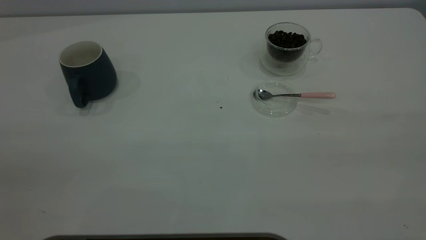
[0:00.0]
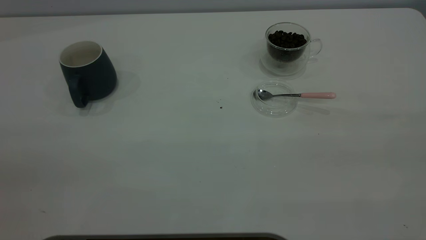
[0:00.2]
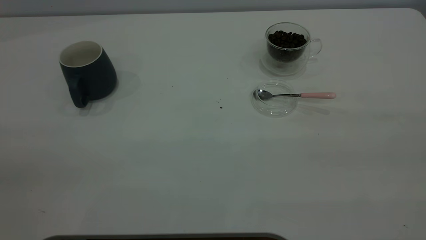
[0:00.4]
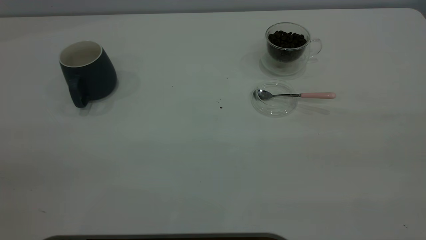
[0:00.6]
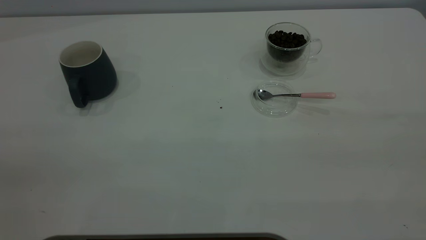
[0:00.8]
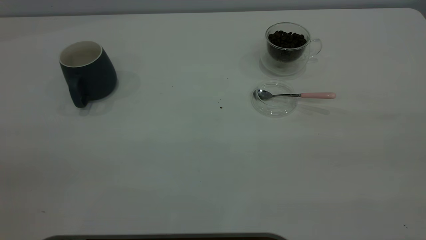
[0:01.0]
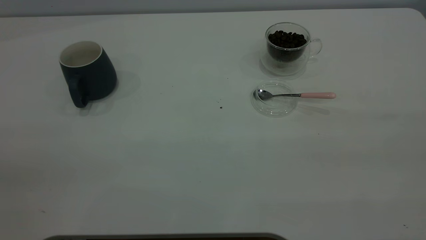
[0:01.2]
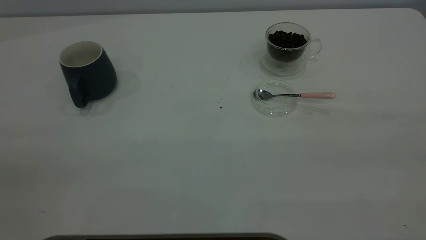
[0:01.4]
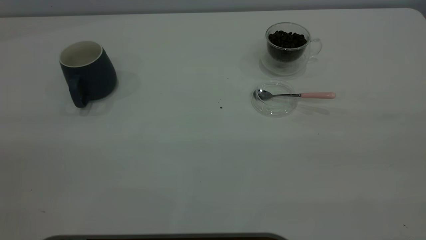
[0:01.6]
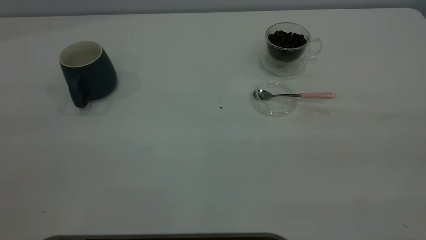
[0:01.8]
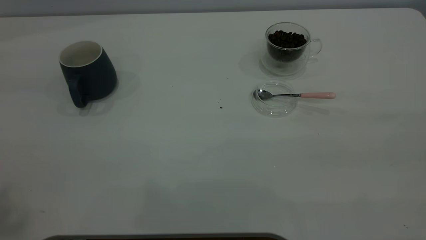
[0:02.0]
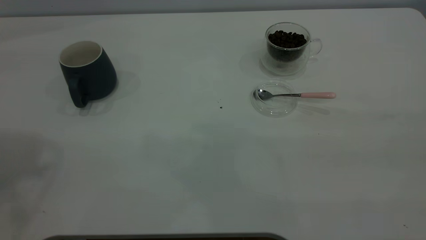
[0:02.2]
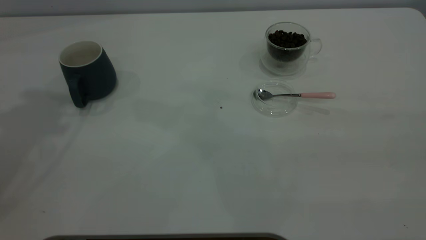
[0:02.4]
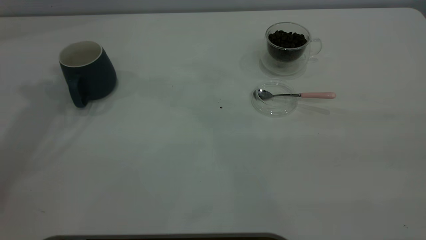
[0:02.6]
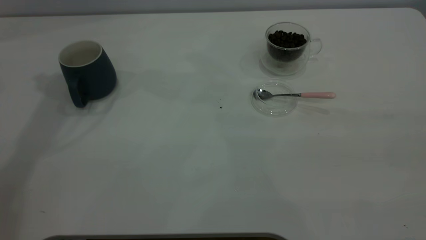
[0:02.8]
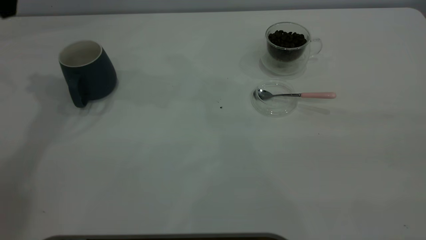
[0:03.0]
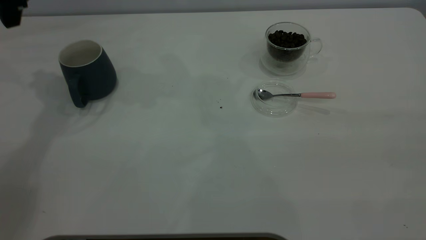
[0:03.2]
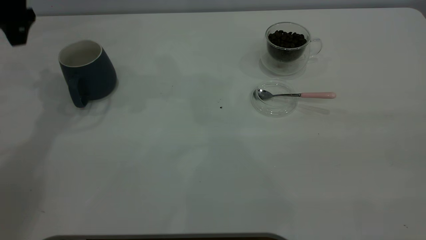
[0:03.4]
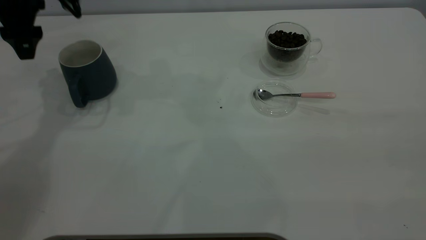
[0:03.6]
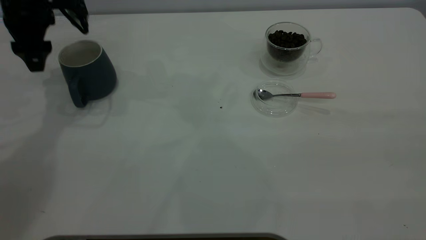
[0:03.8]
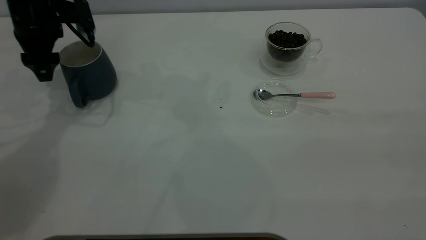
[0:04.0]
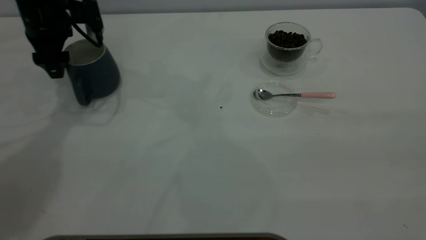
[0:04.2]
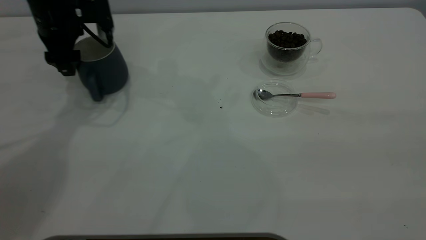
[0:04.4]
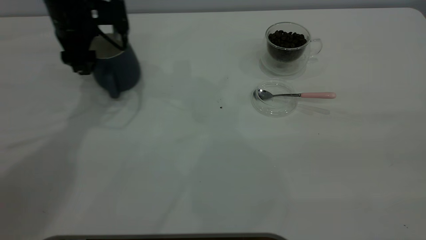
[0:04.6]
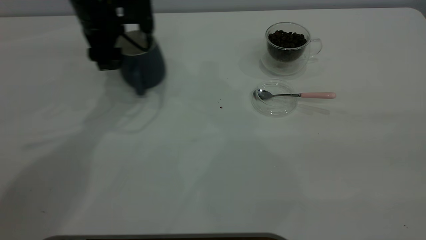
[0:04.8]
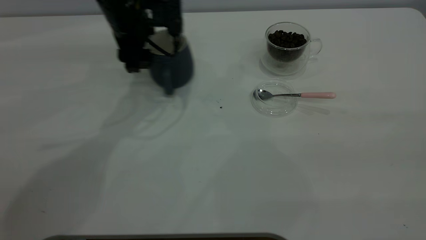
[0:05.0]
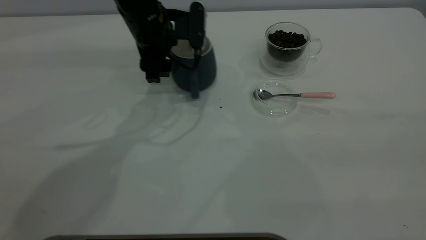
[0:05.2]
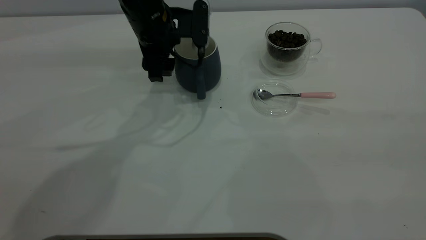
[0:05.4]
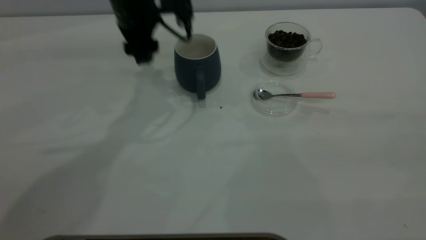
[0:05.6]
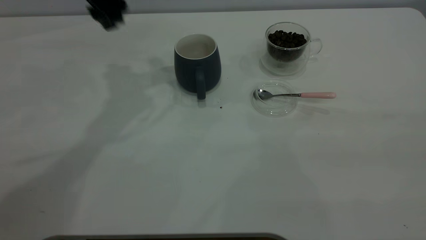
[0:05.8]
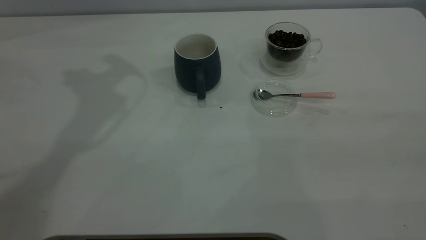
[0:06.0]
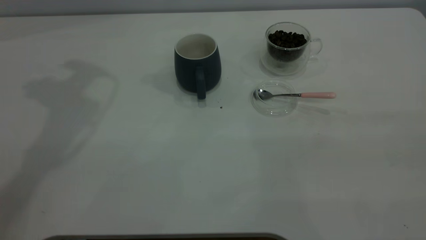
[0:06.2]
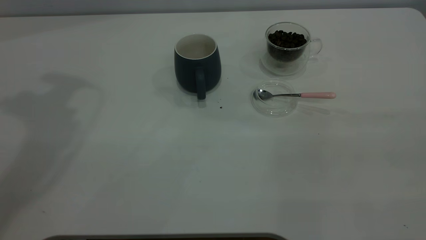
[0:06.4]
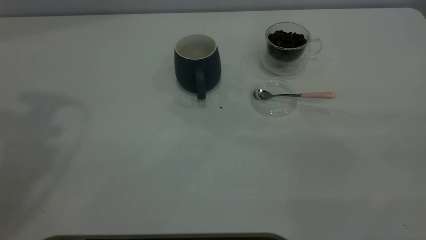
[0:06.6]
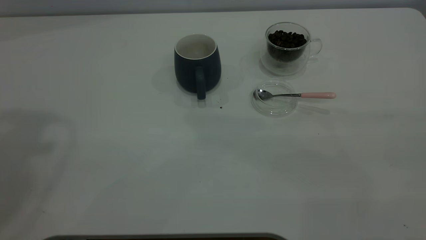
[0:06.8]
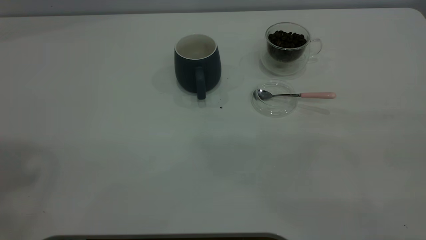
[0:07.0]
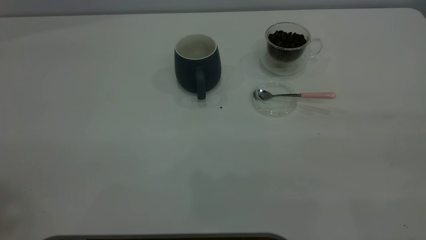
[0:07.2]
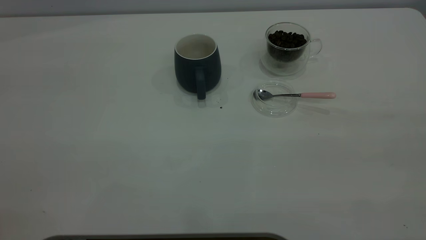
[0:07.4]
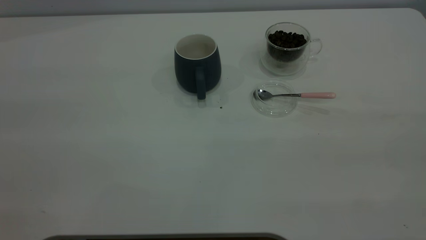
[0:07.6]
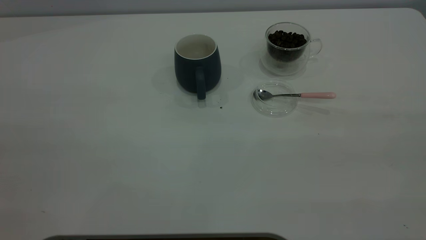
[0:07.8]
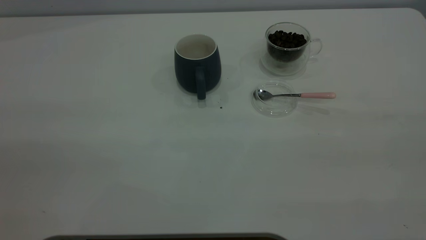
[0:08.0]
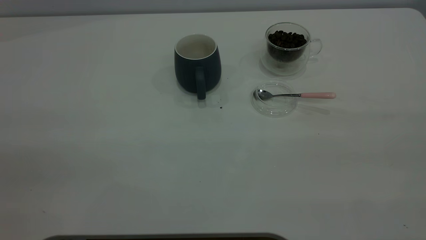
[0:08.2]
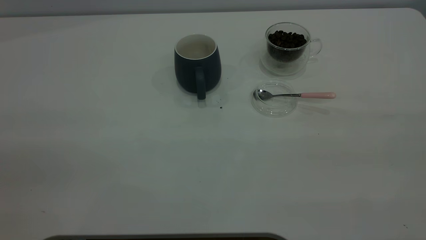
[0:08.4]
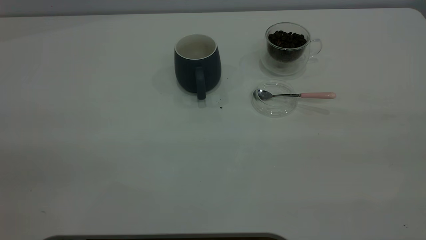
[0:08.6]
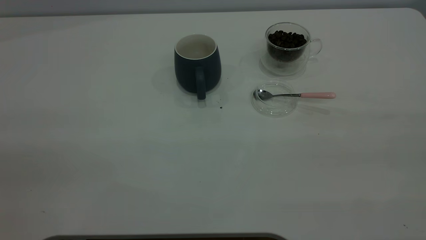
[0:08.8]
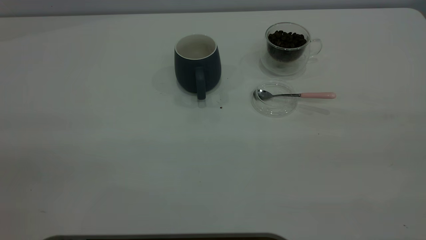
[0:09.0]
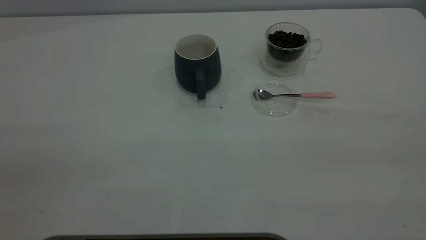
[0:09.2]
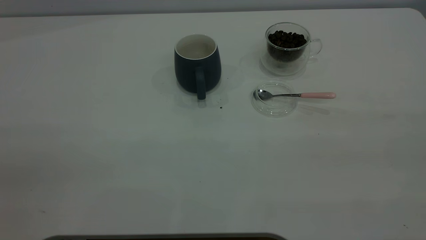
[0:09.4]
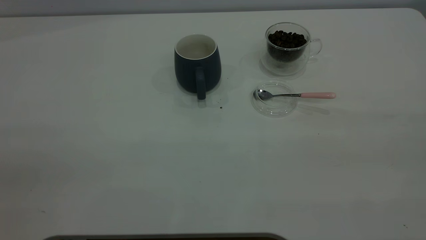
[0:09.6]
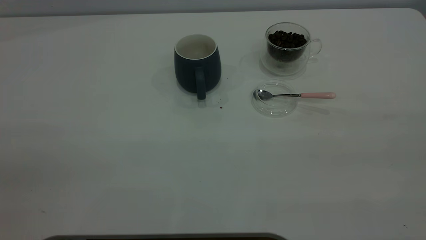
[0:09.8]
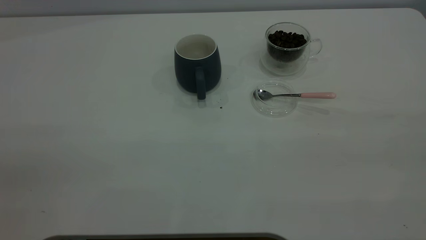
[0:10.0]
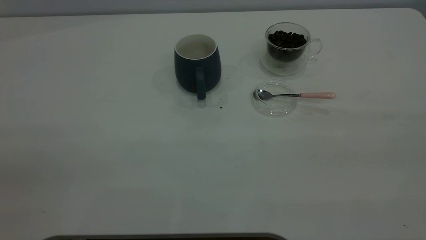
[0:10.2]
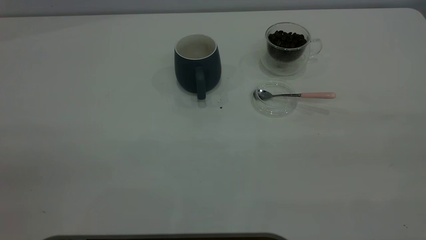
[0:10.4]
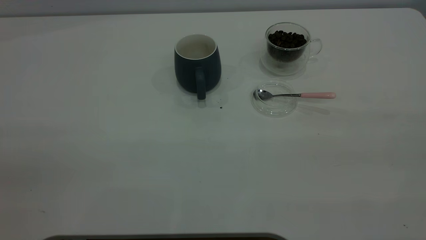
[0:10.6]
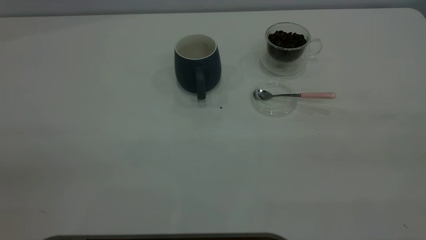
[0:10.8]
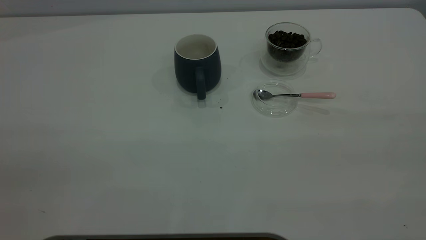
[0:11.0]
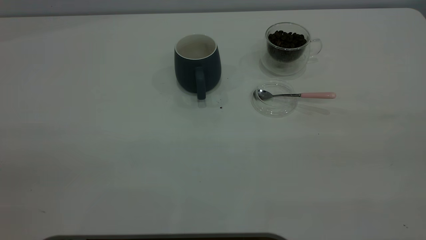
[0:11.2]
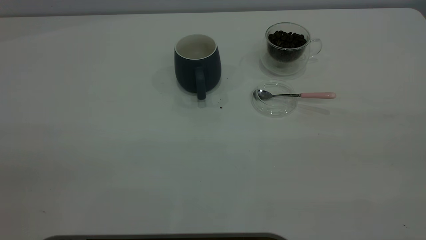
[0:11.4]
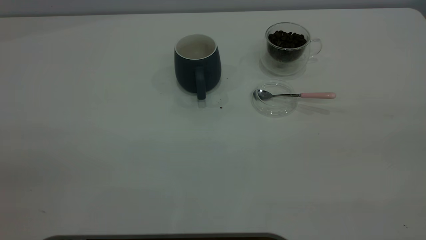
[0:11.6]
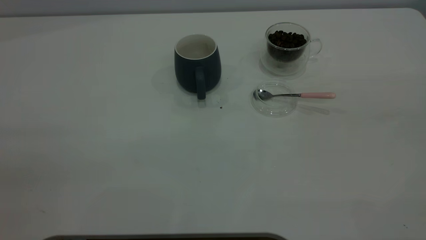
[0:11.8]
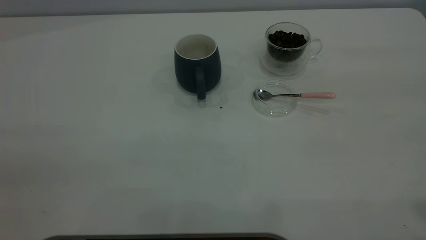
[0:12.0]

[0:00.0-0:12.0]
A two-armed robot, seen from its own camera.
Task of the whole recording: the left gripper place the grey cup in the center of the table, the right gripper take the pink spoon from the cup lid and scoop out the coffee beans from the coffee cup and put them into the grey cup, the right gripper put the spoon back into the cup lid.
Step, 0:00.0 to 0:05.4: Move the cup to the center of view.
0:03.0 to 0:04.4: The left gripper heads downward, covering approximately 15 cm.
0:04.4 to 0:06.0: The left gripper shifts about 20 cm upward.

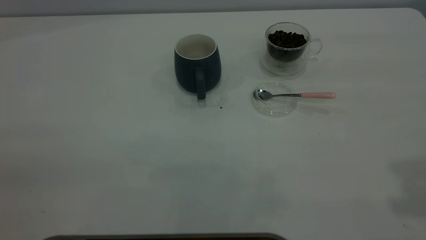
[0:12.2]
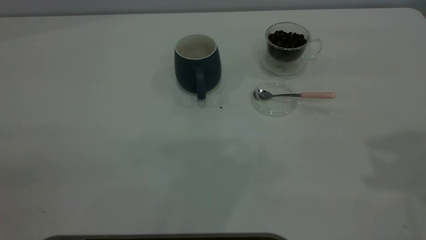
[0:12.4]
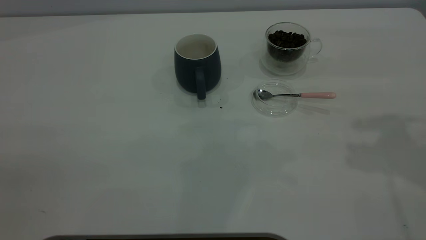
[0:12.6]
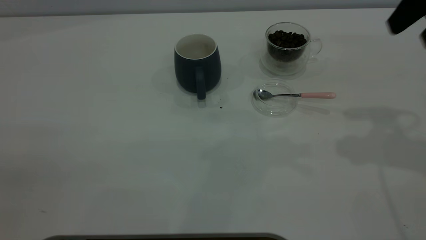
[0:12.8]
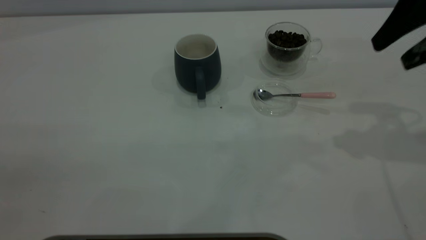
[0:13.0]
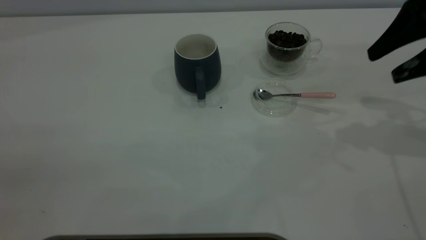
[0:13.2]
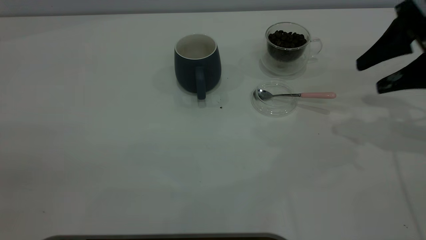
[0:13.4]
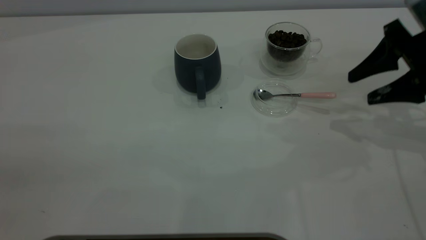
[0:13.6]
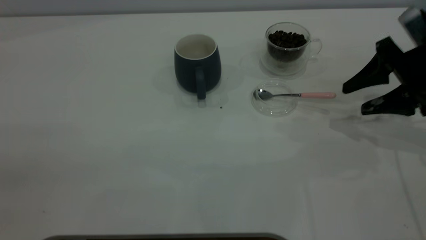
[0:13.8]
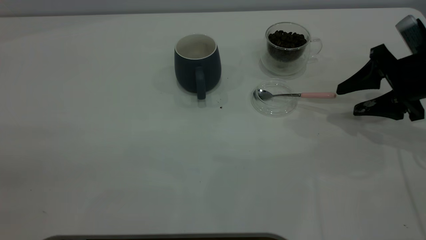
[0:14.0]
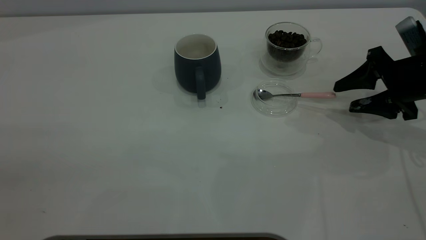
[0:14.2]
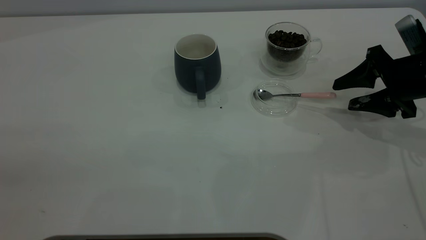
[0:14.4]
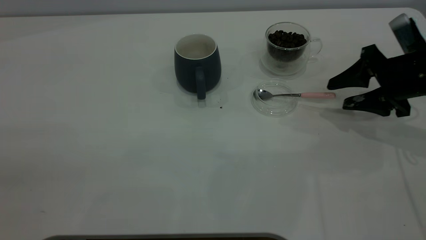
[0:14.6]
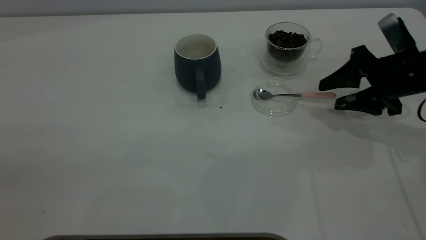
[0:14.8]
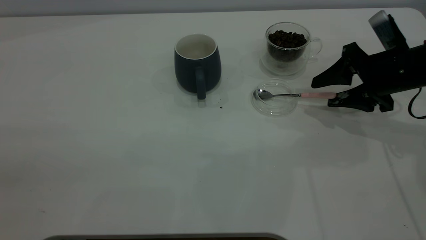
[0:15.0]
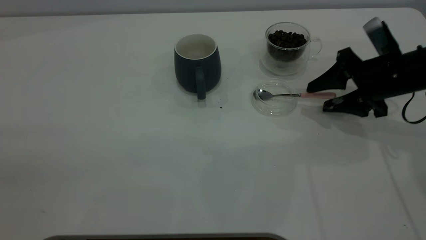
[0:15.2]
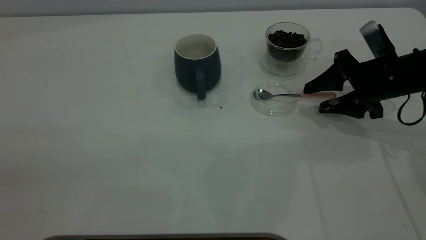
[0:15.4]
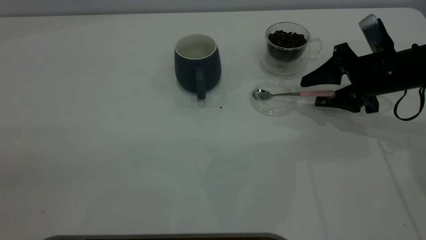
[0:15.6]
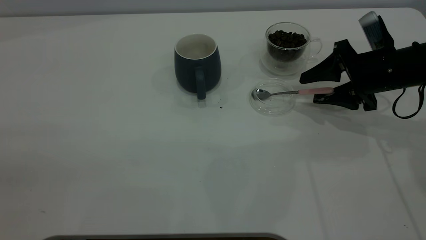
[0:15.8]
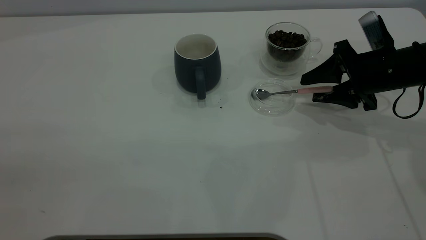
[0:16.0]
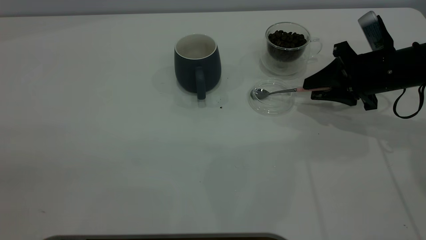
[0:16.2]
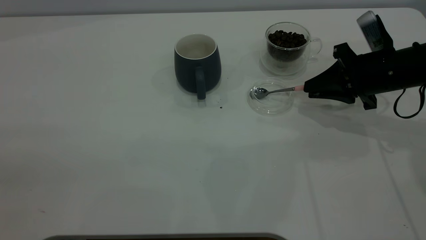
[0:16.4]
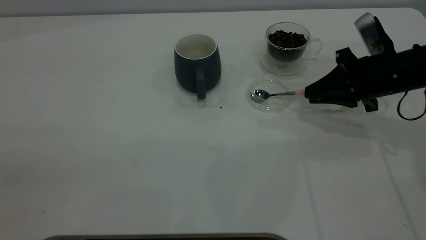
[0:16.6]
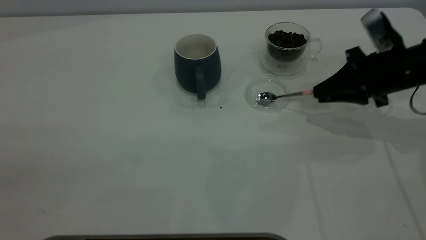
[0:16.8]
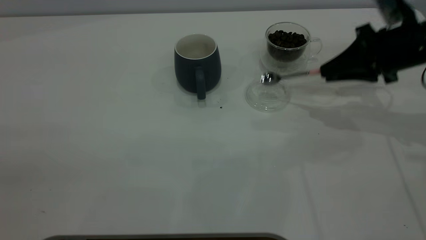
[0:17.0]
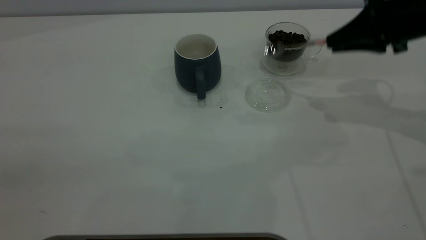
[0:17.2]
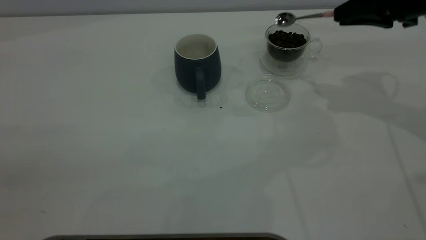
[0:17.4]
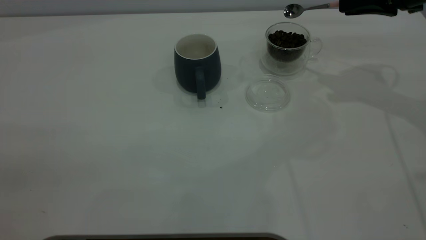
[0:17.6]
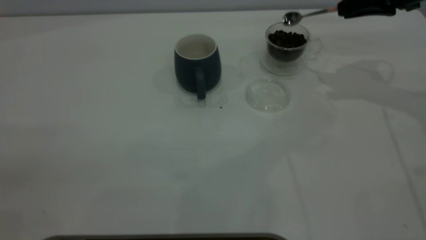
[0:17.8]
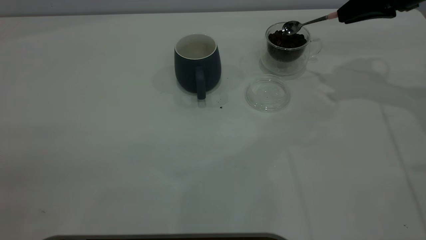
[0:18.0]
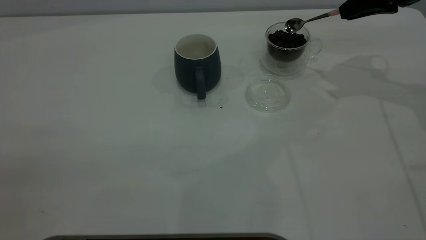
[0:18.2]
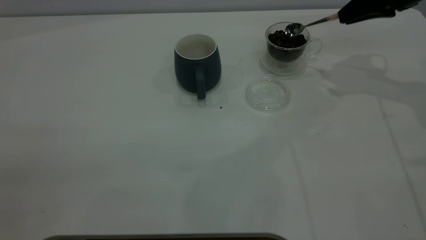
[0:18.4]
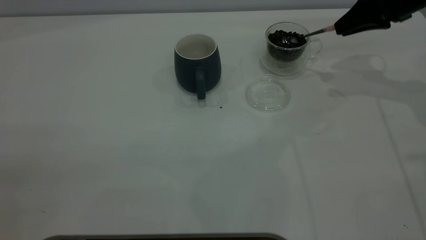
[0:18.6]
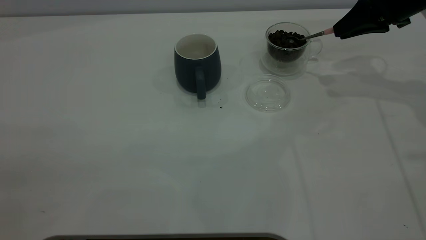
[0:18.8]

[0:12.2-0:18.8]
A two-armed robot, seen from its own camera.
Task of the whole recording: the left gripper place the grey cup in the center of the table, the right gripper take the pink spoon from the cup lid and scoop out the coffee beans from the coffee cup and put them into the grey cup, the right gripper put the spoon back into the cup lid.
Step, 0:12.2 to 0:17.0: Pick up the spoon.
0:12.2 to 0:13.8: The right gripper shifts approximately 35 cm downward and forward.
0:13.8 to 0:15.4: The right gripper shifts by approximately 5 cm.
0:15.4 to 0:17.2: The right gripper goes about 10 cm upward, and closes its fingers.
0:17.2 to 0:18.8: The right gripper shifts roughly 5 cm forward.
